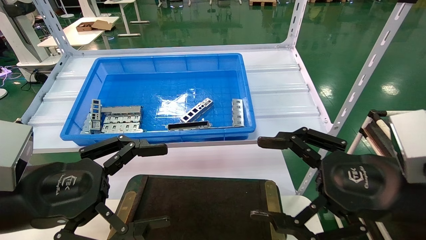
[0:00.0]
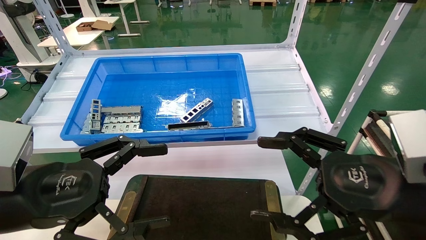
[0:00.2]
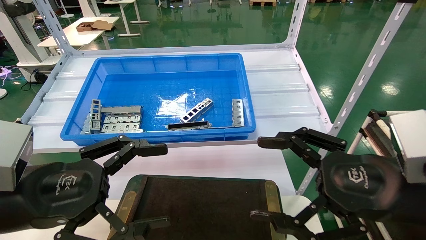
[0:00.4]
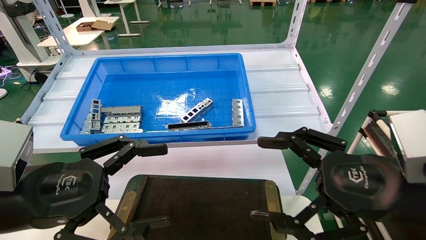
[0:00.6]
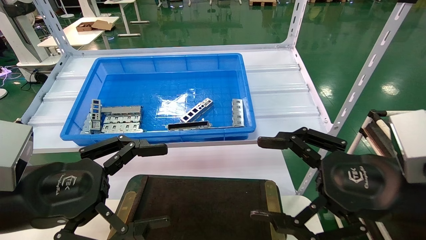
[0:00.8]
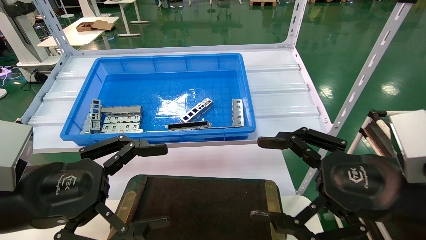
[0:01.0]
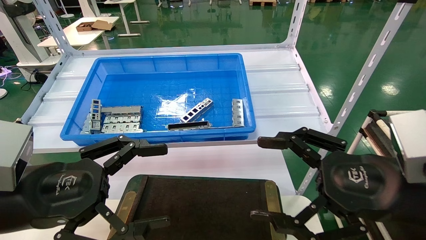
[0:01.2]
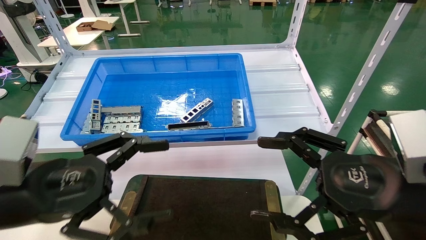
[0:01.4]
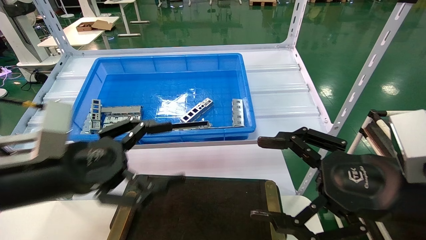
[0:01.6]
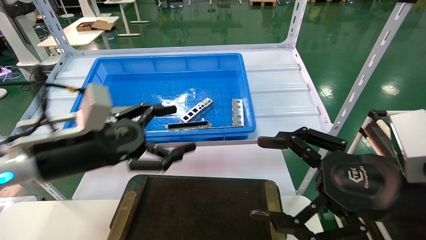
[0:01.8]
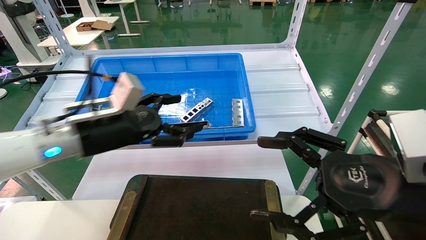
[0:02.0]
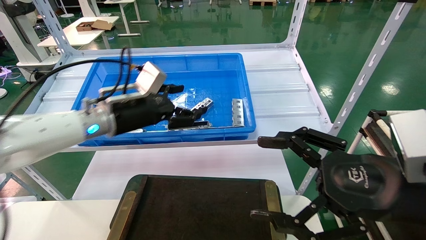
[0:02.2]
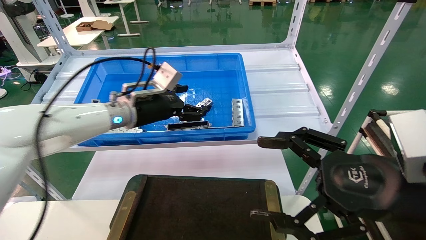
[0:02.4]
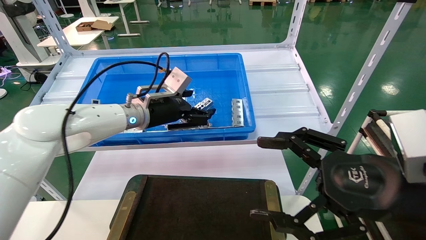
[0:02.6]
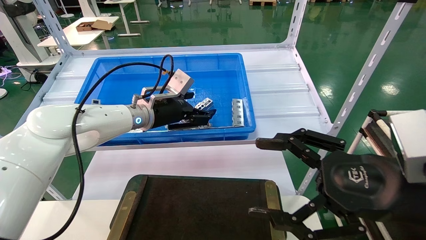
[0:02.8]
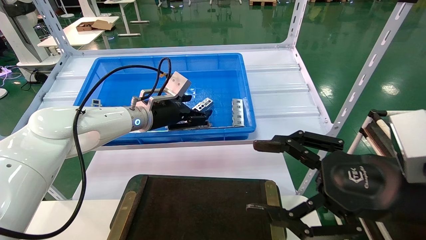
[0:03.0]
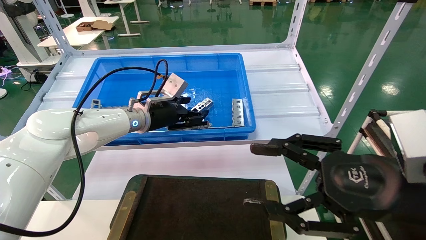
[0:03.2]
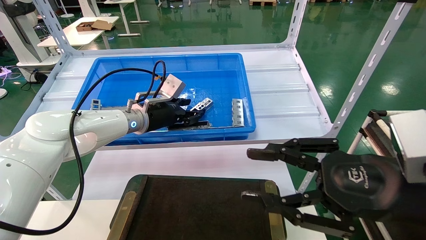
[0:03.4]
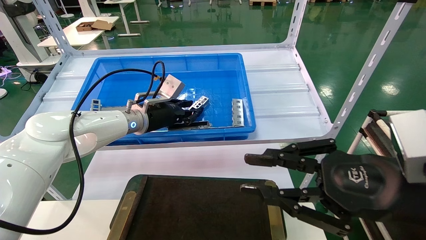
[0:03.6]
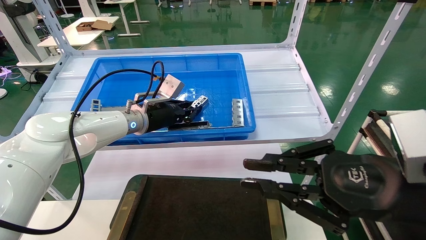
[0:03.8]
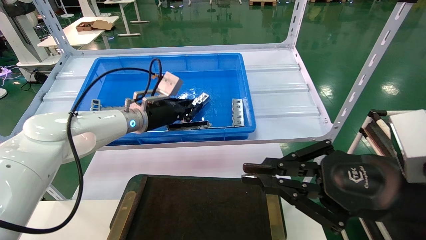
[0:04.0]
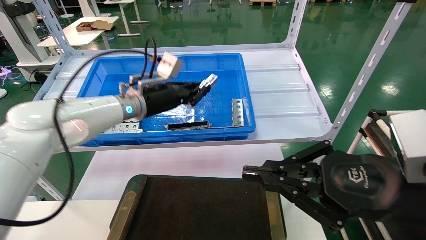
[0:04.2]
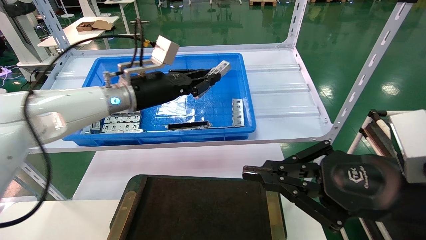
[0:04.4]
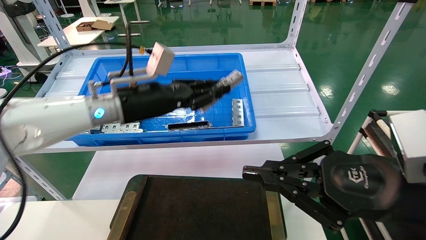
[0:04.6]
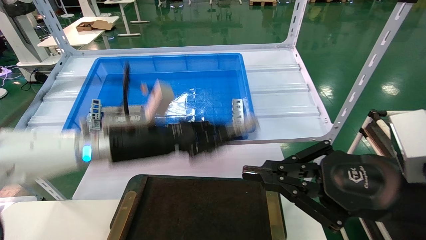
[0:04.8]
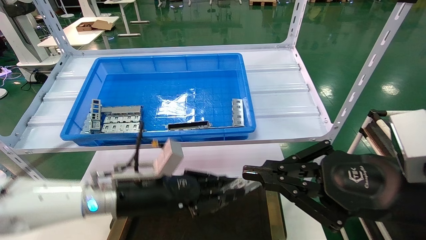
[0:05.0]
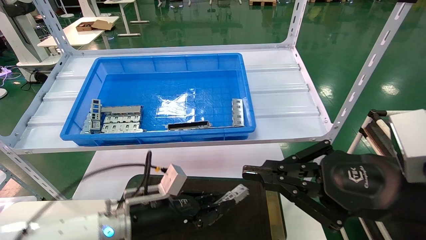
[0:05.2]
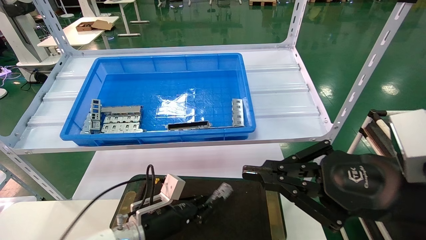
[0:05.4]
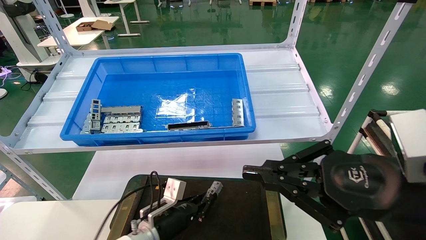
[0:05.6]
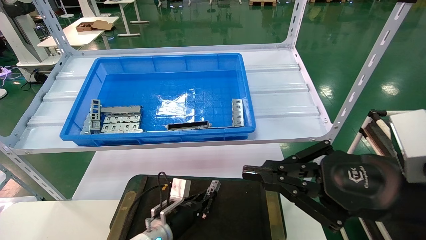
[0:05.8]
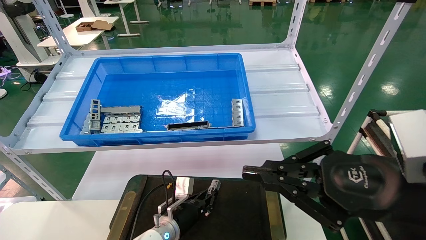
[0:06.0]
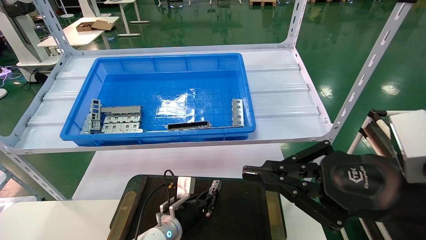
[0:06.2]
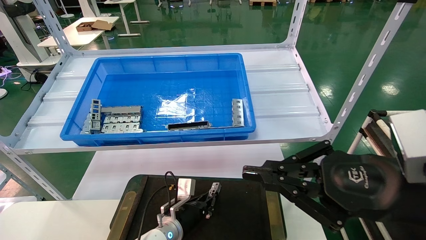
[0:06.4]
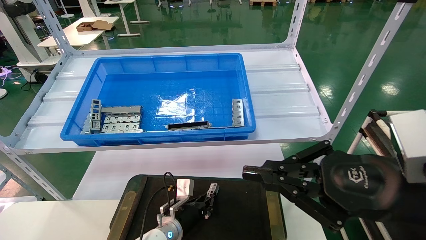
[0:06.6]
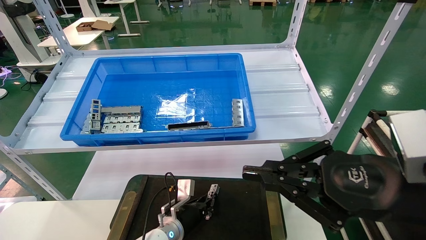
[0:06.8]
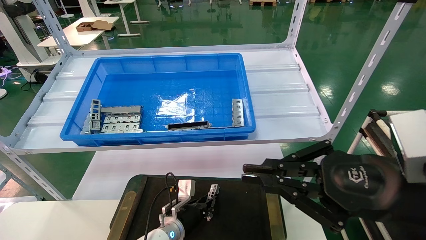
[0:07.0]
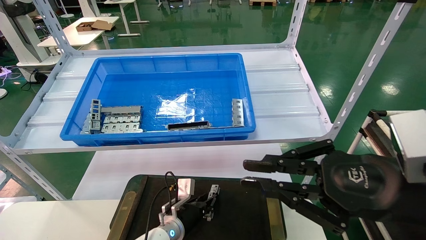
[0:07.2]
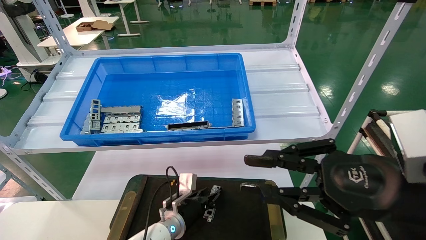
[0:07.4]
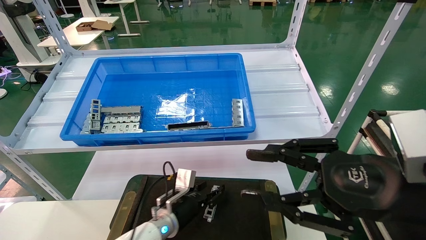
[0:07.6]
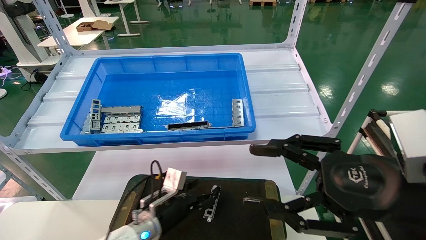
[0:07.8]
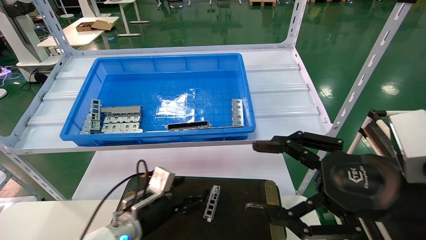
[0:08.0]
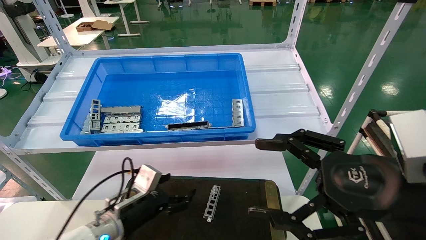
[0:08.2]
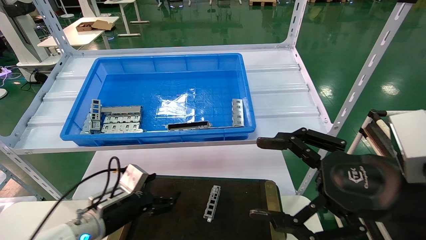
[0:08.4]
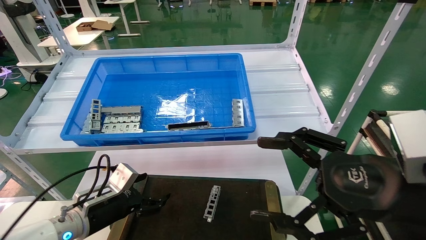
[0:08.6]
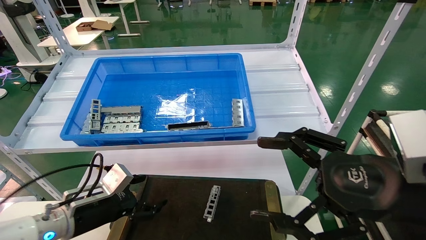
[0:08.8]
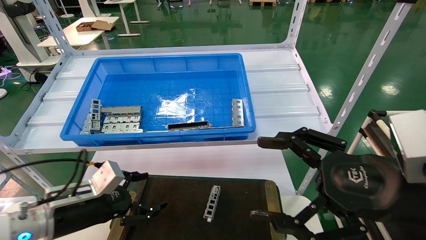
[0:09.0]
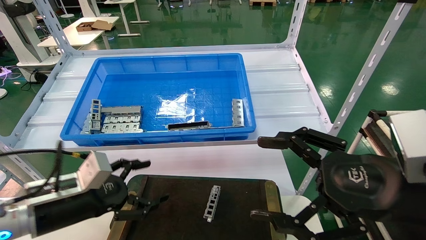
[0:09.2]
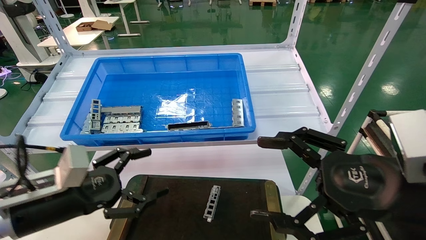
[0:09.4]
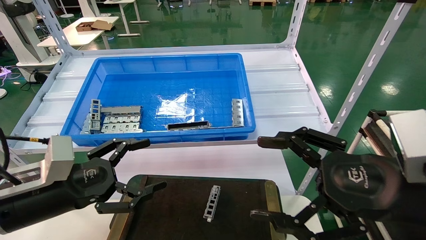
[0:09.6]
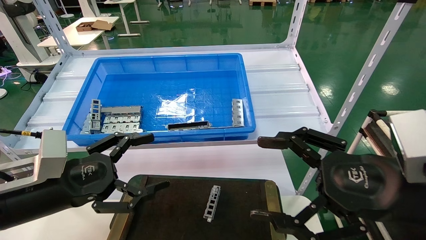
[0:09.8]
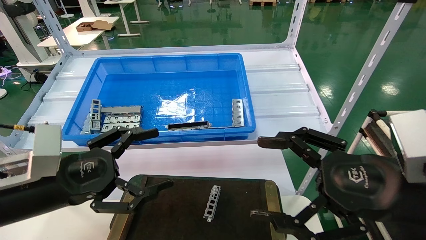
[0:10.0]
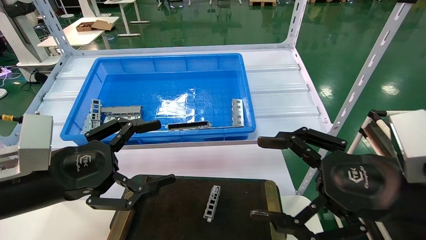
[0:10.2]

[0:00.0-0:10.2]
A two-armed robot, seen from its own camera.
Task of the whole recording: Grasp the part with one hand and place it on the black container.
Step, 0:01.6 to 0:03.6: Pick up the front USB bracket from the feeding area.
Step, 0:03.8 to 0:07.4: Place the front USB bracket into the box.
0:00.0 to 0:01.4: The grippers move only a little.
0:01.4 to 0:03.0: The left gripper goes approximately 25 cm forward.
0:03.0 to 0:04.4: The right gripper closes up. Meanwhile the left gripper moves backward, roughly 5 cm, and closes.
0:04.4 to 0:05.8: The left gripper goes roughly 35 cm downward.
0:05.8 to 0:07.2: There are only small adjustments of the grippers.
0:07.2 to 0:08.8: The right gripper opens. The left gripper heads to the left, upward and backward, covering some 25 cm, and opens its fingers.
0:08.8 to 0:10.2: The left gripper travels upward and backward by roughly 15 cm.
